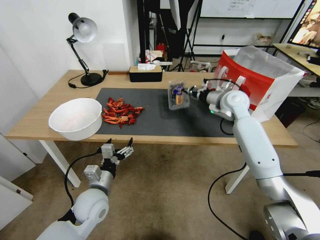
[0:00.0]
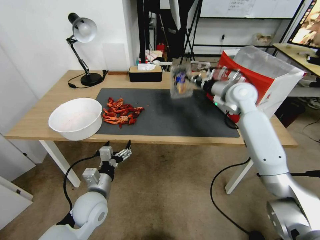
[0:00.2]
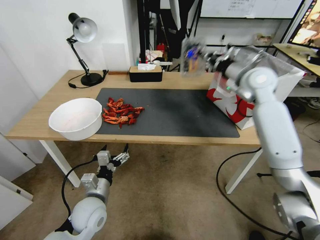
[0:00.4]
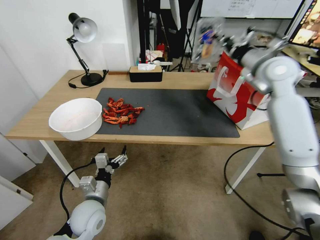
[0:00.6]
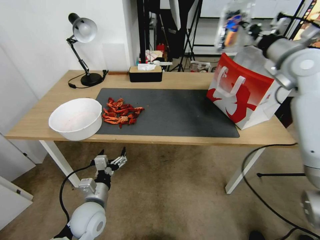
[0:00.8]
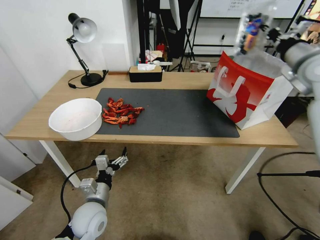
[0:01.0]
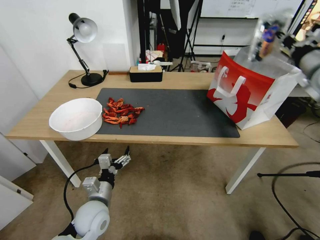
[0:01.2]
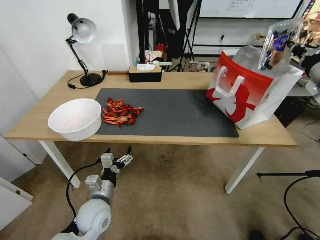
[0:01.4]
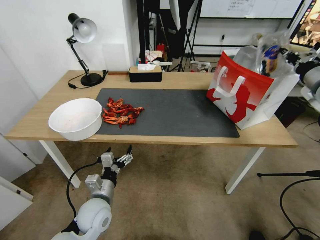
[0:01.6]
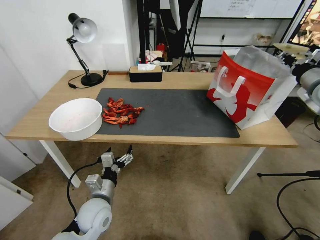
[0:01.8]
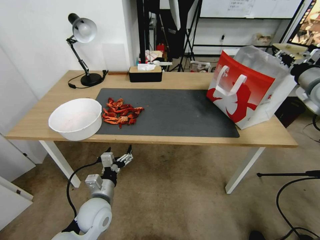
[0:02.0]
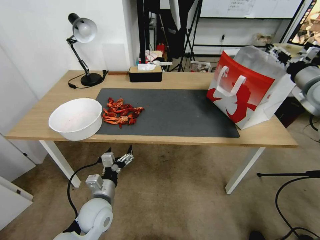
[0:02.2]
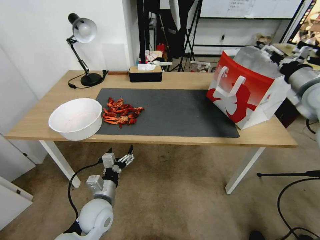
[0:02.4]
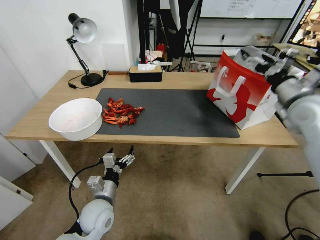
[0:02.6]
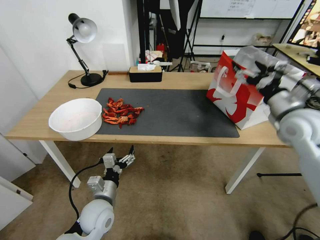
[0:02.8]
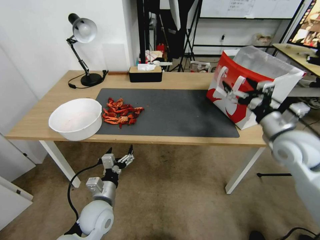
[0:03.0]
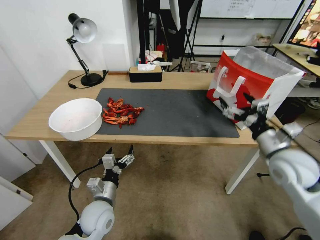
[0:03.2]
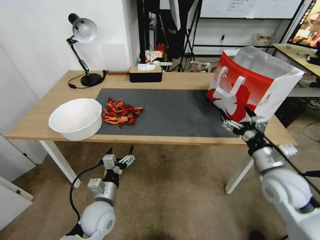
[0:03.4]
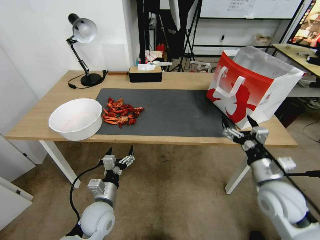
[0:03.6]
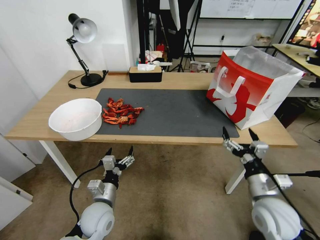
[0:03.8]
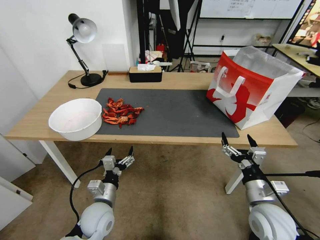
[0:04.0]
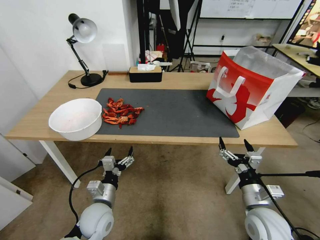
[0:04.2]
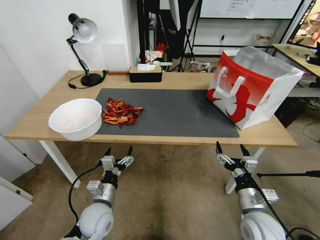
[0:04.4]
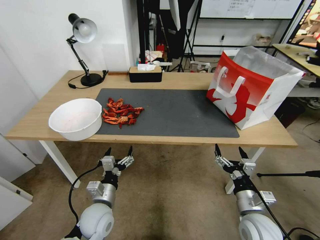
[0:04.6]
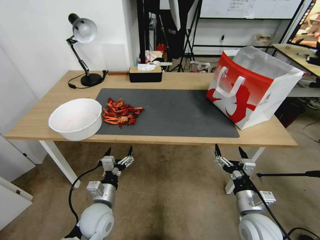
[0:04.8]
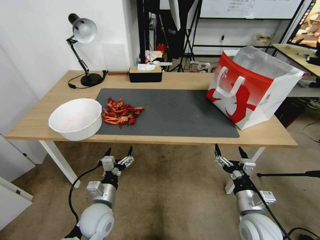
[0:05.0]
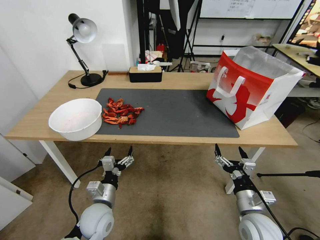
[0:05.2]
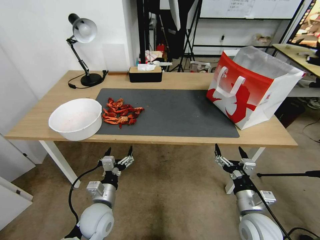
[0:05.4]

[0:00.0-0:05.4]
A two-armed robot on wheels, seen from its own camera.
Task of the whole recording: Close the takeout container lid, then place the container into the takeout bag.
0:00.0 to 0:01.4: The right gripper shifts approximately 25 cm to the right, upward and backward.
0:01.4 to 0:02.8: The right gripper moves to the left, downward and backward, roughly 15 cm, and opens.
0:02.8 to 0:04.0: The right gripper shifts some 25 cm downward and backward.
0:04.0 to 0:05.4: The grippers move only a little.
